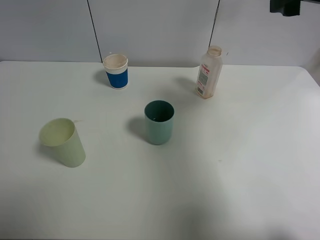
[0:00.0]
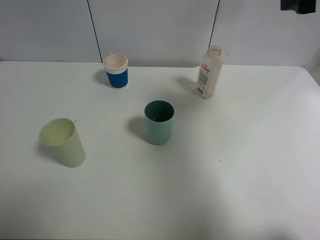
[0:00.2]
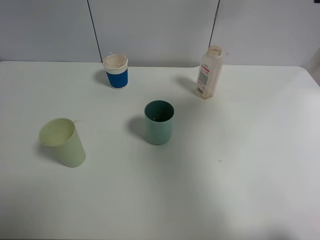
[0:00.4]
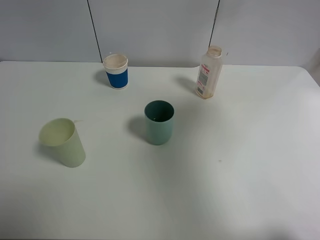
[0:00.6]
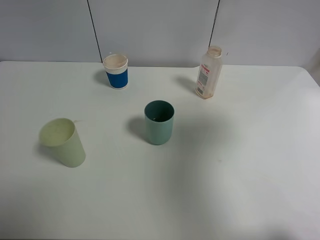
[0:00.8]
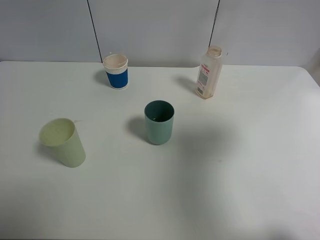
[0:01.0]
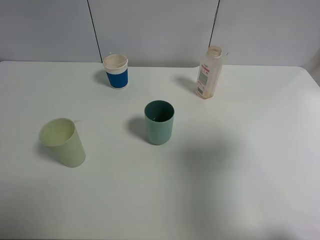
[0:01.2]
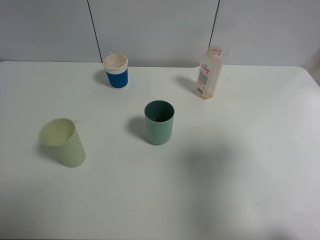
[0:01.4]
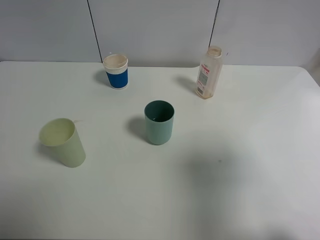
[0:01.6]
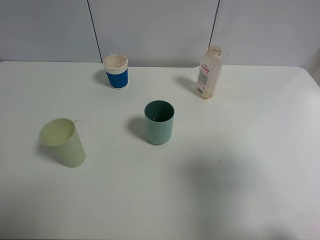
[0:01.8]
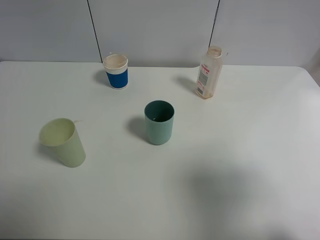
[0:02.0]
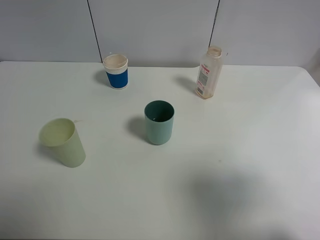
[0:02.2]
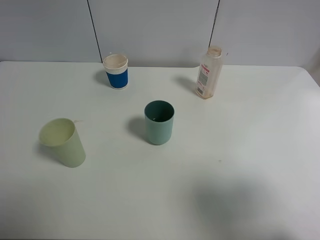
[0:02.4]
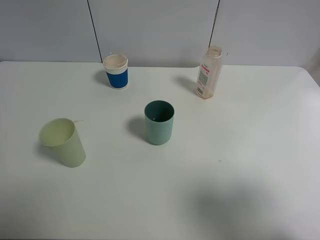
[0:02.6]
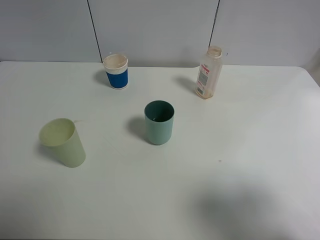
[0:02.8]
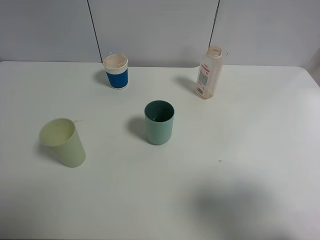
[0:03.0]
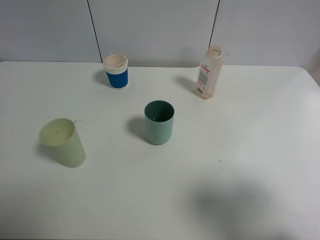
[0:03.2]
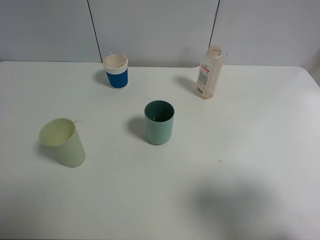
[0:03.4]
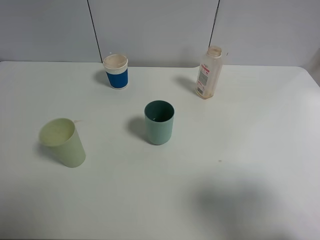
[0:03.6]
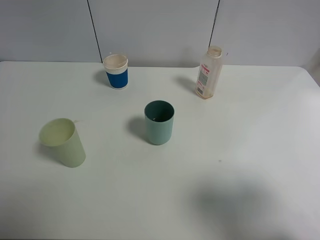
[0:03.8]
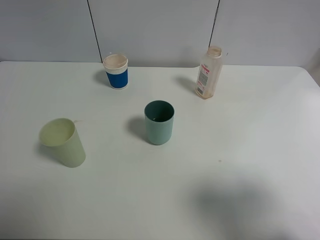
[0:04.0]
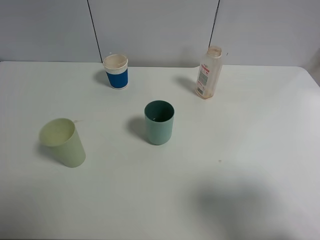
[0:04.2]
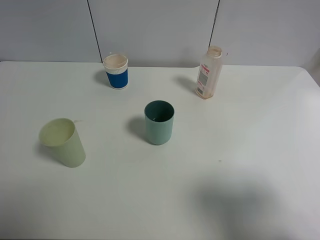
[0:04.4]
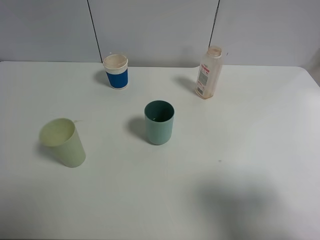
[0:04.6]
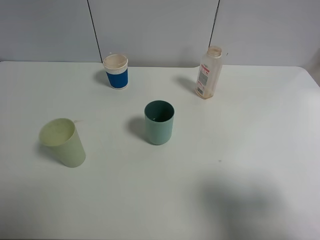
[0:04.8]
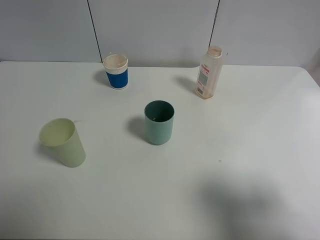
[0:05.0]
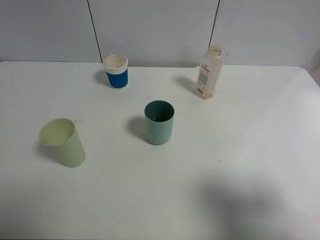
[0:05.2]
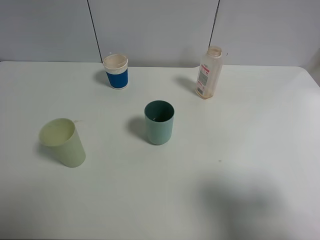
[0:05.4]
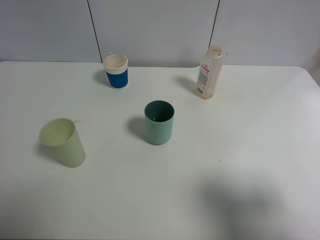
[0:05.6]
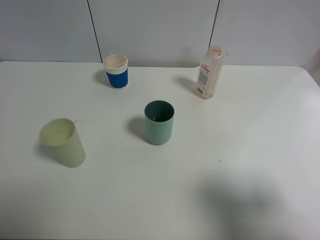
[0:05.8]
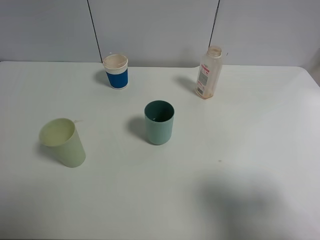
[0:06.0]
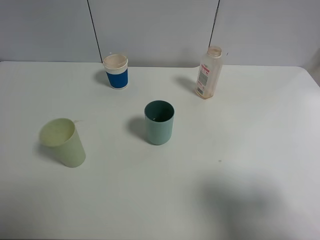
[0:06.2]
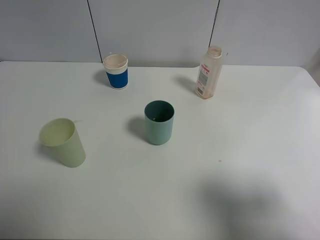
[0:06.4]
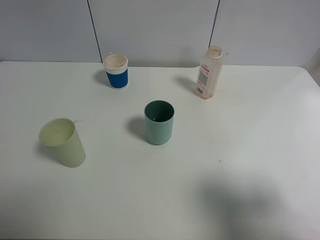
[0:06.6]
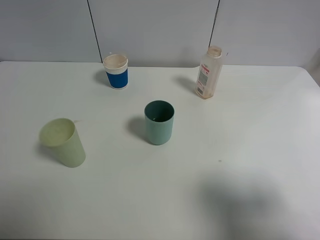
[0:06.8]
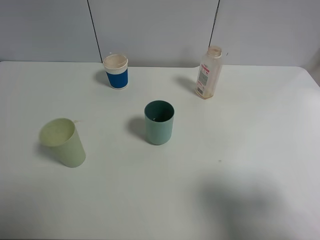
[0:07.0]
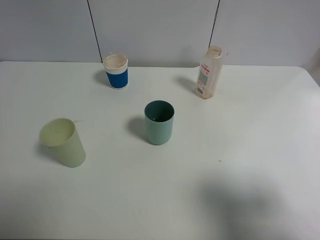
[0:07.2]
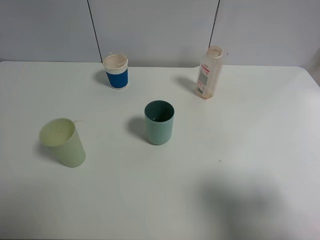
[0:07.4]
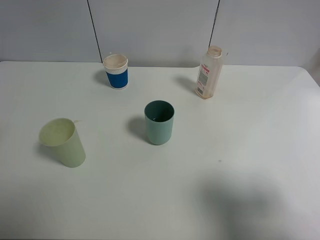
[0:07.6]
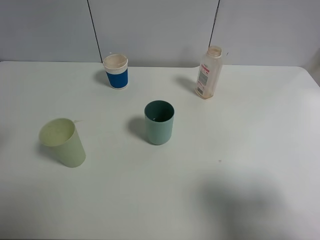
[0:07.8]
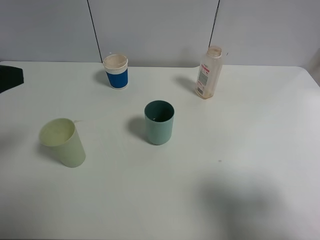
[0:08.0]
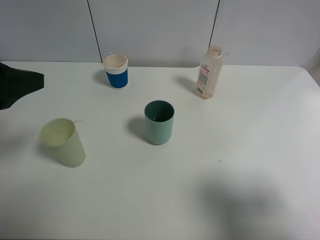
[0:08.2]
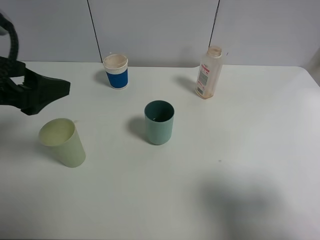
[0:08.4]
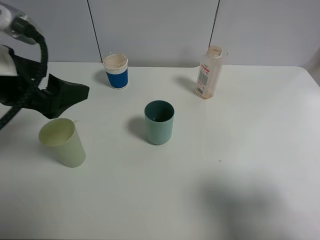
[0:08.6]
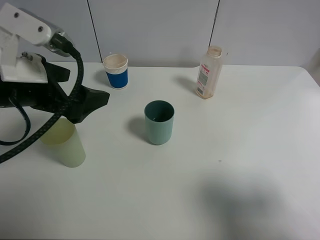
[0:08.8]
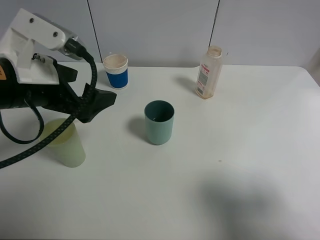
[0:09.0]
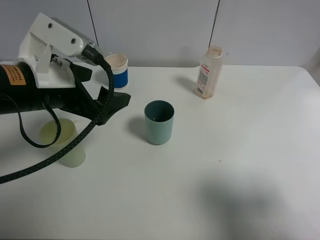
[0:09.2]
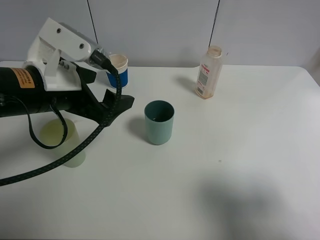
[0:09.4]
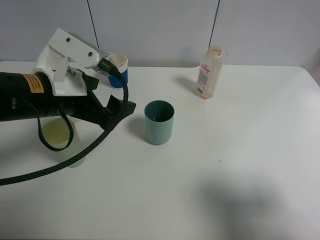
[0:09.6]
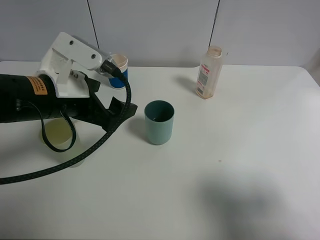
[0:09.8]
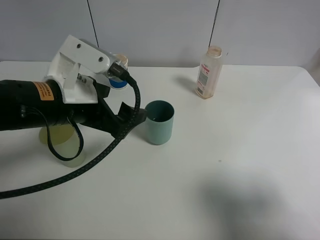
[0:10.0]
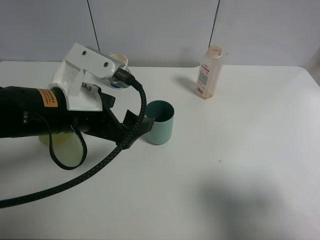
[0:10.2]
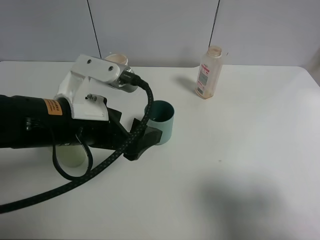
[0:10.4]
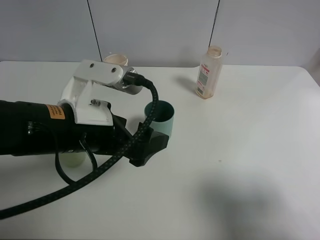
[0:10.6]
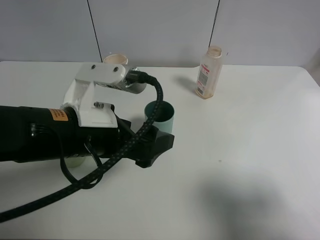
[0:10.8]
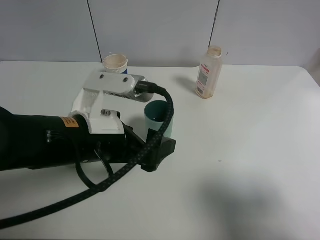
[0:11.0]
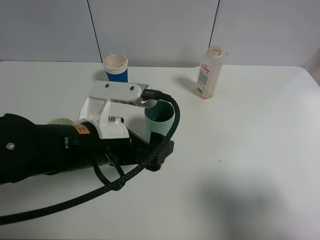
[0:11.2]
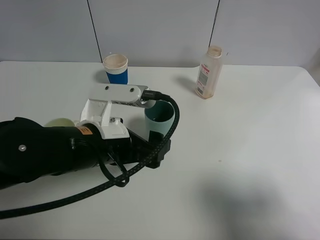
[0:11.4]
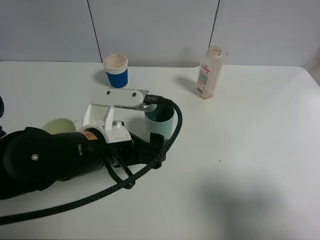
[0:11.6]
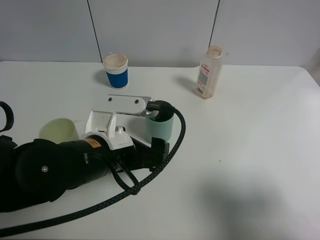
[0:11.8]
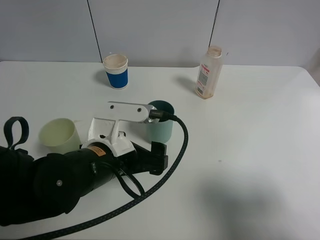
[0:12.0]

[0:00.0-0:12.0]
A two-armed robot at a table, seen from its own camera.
Task of the whole recording: use a clamp to hold the bottle of the drink, pour the beverage into a random cup, then clamp the cup containing the drink and pour the drink into another random cup.
0:00.0 to 0:01.6: The right gripper heads backward, covering about 20 cm.
0:01.6 to 0:03.0: The right gripper is displaced backward by some 5 cm.
0:07.6 to 0:09.0: The left gripper moves to the right, forward and downward, about 15 cm.
0:09.0 to 0:10.4: The left gripper heads to the right, covering some 5 cm.
0:10.4 to 0:12.0: The left gripper moves downward, roughly 5 cm.

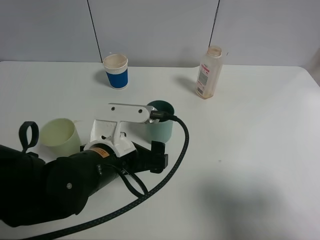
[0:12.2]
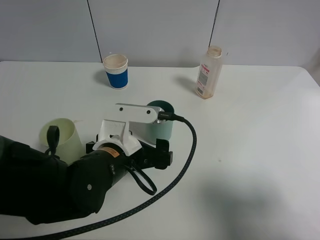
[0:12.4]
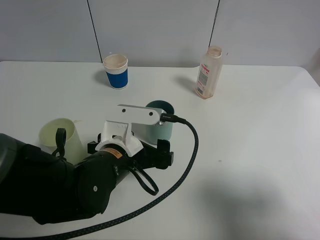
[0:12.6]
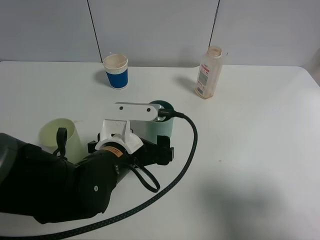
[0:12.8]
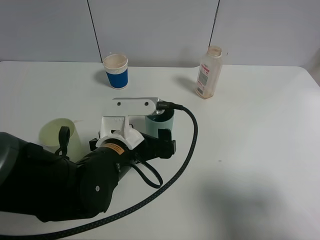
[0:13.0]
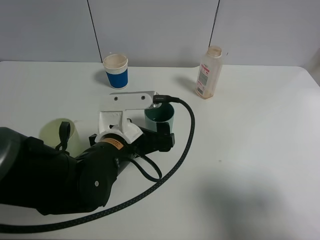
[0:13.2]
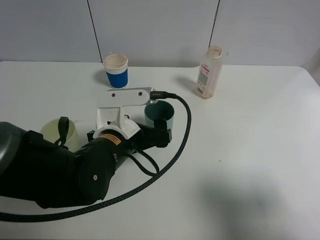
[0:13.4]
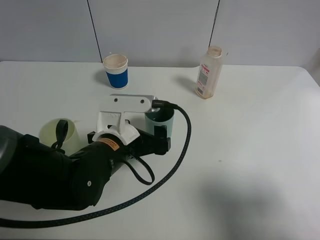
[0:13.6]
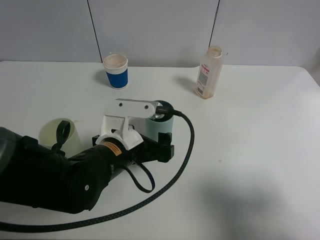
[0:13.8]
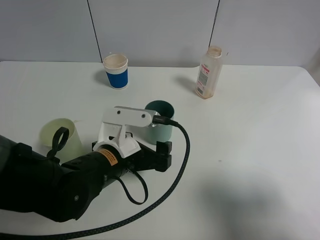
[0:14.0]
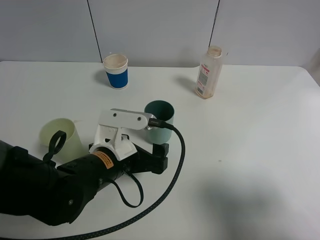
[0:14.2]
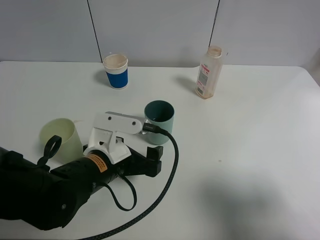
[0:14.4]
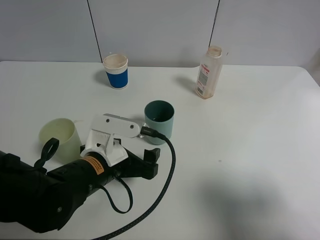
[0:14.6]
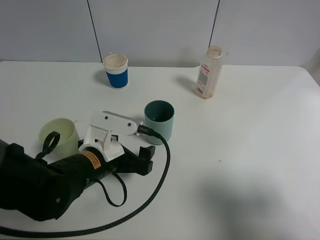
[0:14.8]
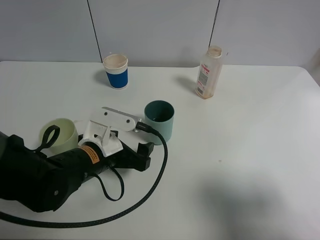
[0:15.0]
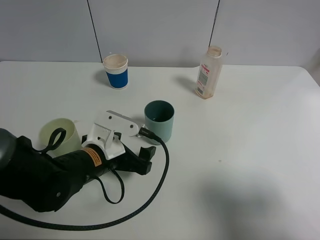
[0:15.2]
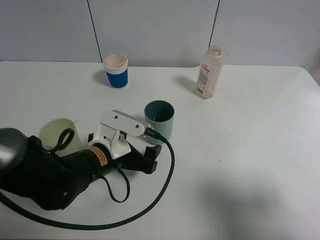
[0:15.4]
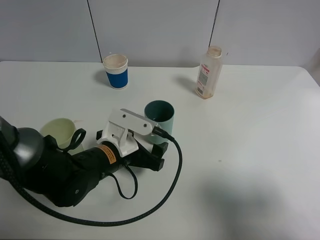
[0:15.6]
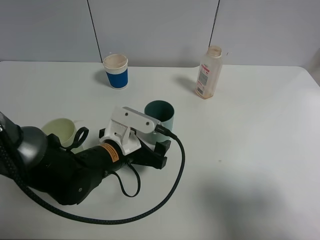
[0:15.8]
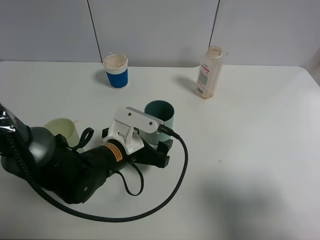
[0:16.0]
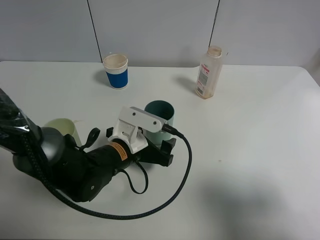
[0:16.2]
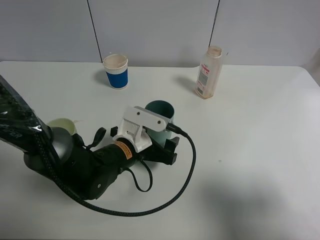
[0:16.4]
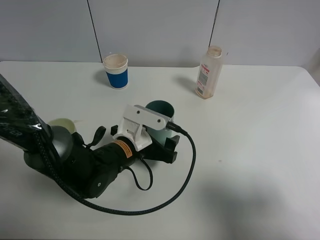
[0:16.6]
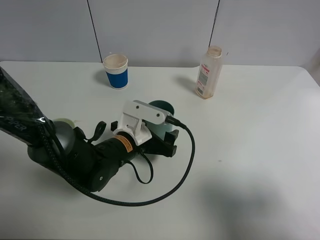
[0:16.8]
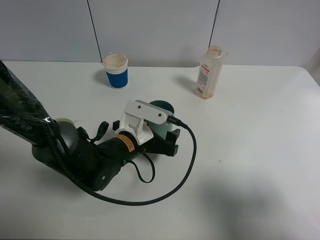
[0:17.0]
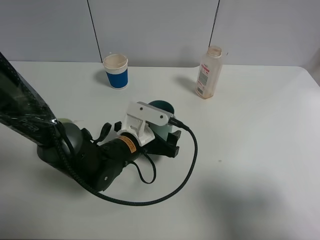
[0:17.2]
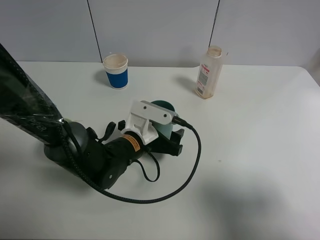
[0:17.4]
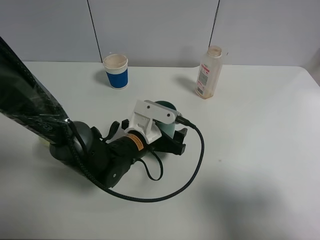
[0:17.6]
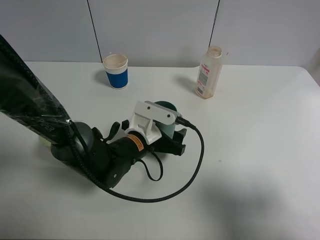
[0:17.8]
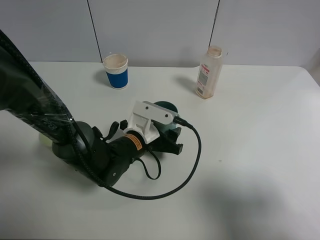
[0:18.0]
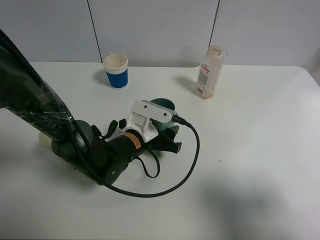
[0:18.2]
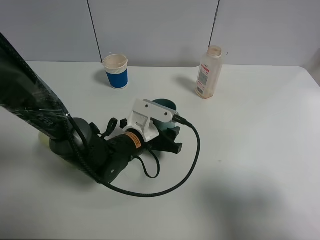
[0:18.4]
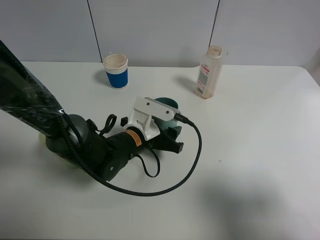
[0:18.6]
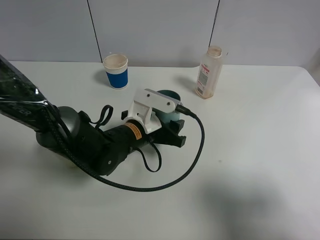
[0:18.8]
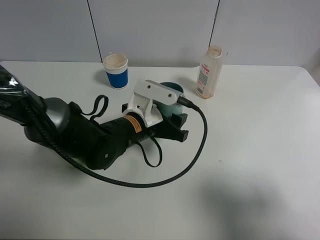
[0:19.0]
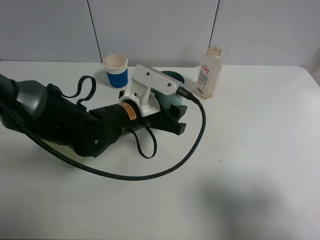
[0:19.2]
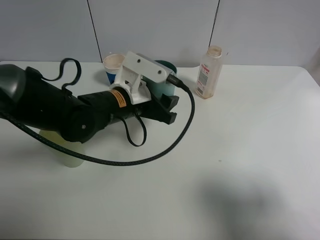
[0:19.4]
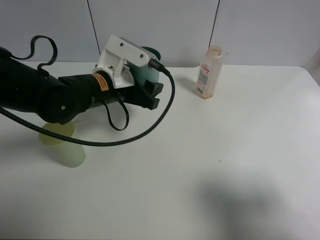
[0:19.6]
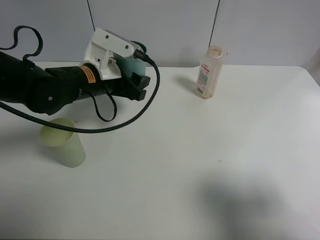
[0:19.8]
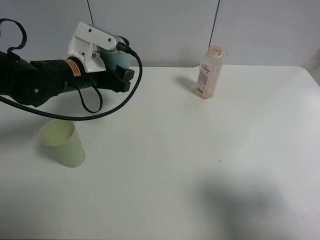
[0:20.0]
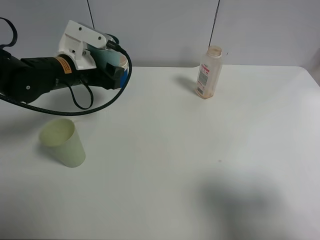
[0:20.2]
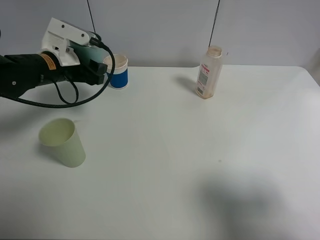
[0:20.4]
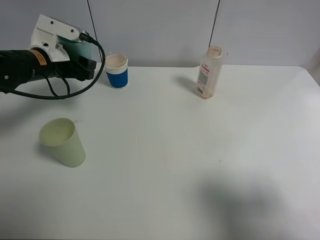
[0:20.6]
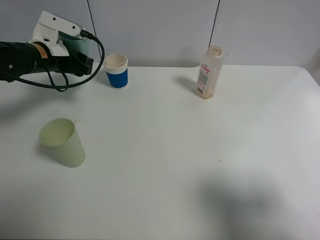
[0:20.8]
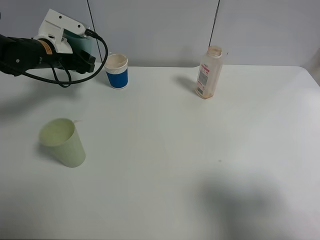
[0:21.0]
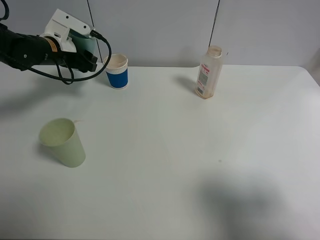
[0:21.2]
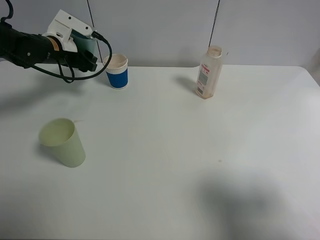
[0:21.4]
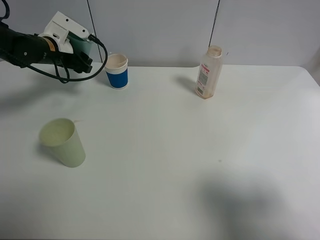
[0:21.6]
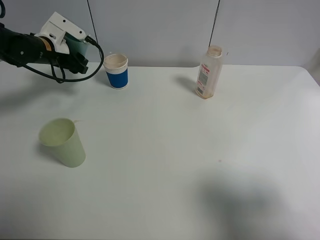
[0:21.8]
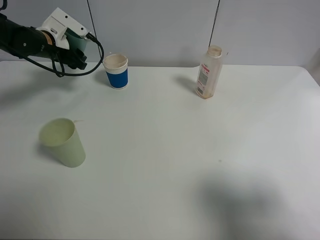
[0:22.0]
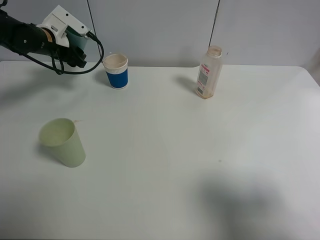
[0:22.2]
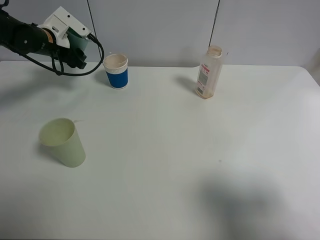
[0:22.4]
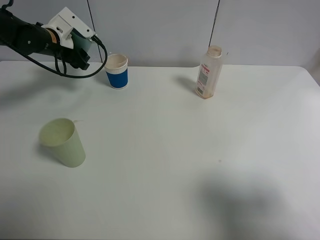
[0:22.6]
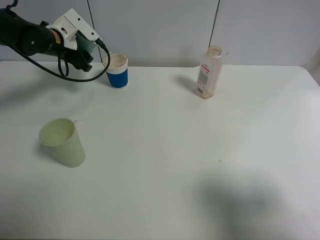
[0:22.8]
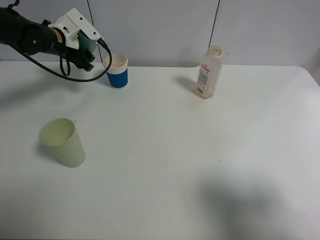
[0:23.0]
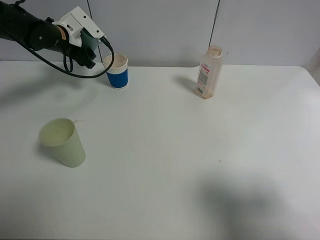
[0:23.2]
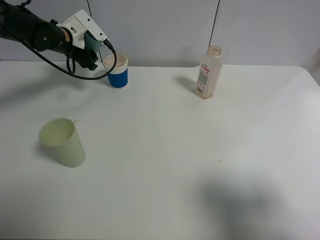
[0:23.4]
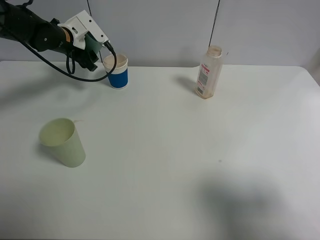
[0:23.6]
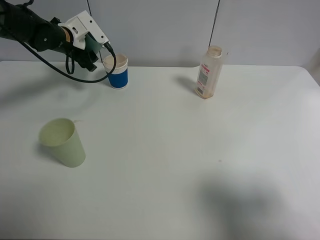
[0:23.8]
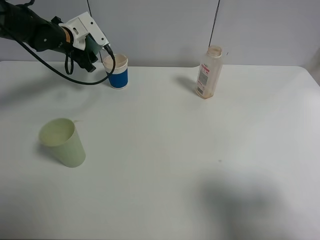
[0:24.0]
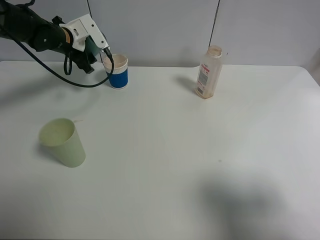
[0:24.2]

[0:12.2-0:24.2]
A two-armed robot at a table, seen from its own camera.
Task of the whole recording: use a clamp to hold the bottle of the drink, pour the beverage into a random cup, then clamp the cup containing the drink and pour the drink into another random cup.
Step, 0:12.2 to 0:18.6: Pick up the blue plastic cup with left gripper.
0:12.2 to 0:13.8: There are only small adjustments of the grippers.
0:13.8 to 0:15.2: The left gripper shifts by about 5 cm.
0:15.2 to 0:16.6: The left gripper shifts by approximately 5 cm.
0:16.6 to 0:18.2: The left gripper closes its fingers.
0:18.2 to 0:19.8: The left gripper shifts about 15 cm upward and to the left.
0:19.8 to 0:21.2: The left gripper is displaced to the left and forward by roughly 15 cm.
0:21.2 to 0:22.6: There are only small adjustments of the grippers.
0:22.6 to 0:24.2: The grippers stay close to where they were, moving slightly.
